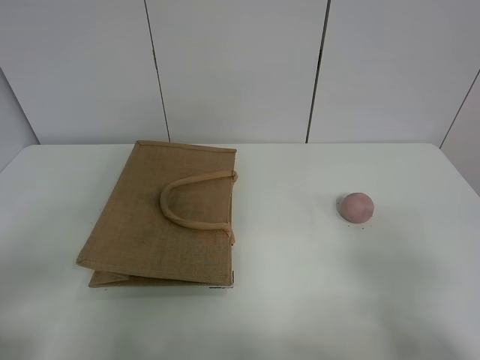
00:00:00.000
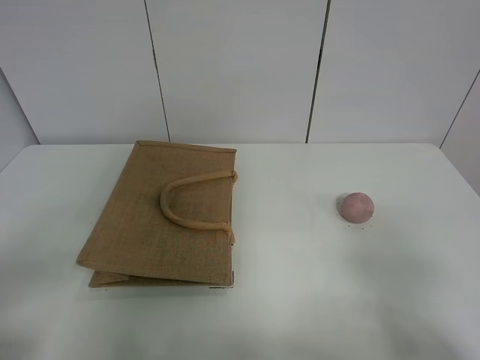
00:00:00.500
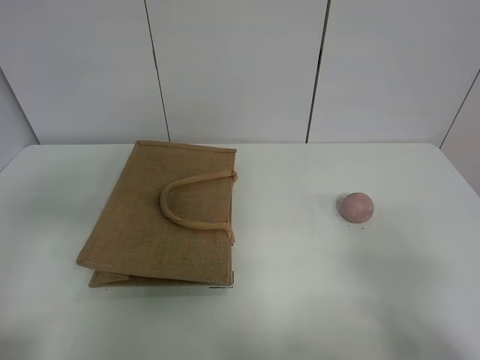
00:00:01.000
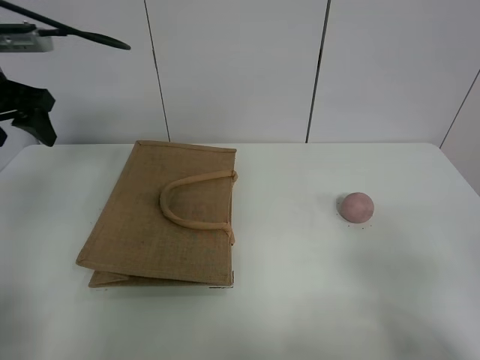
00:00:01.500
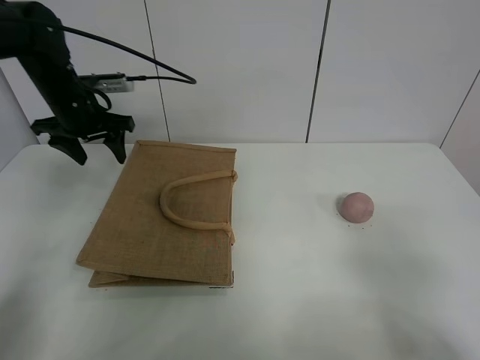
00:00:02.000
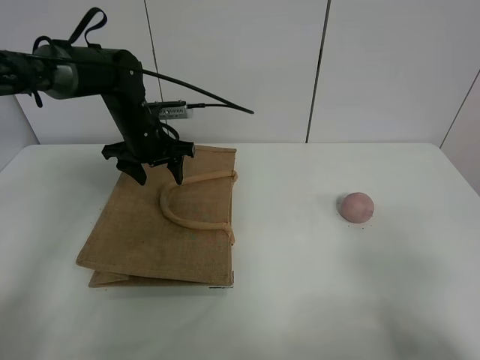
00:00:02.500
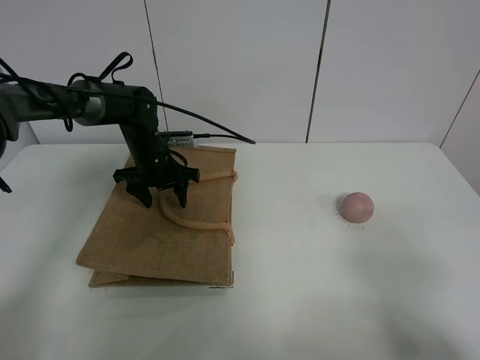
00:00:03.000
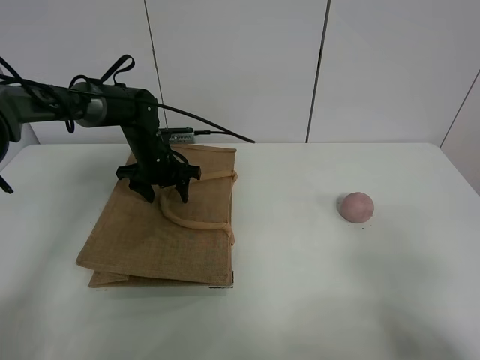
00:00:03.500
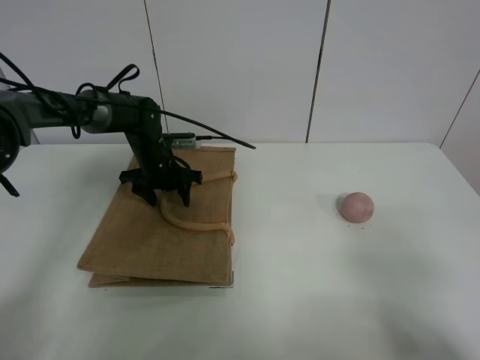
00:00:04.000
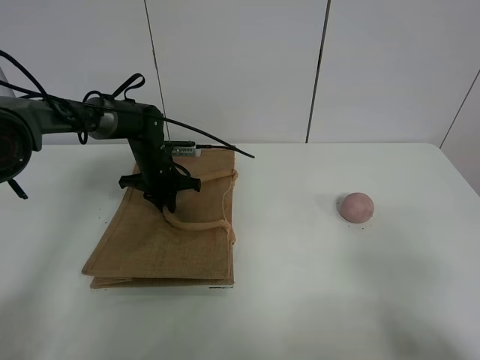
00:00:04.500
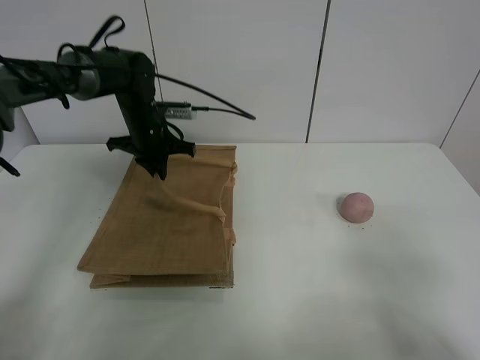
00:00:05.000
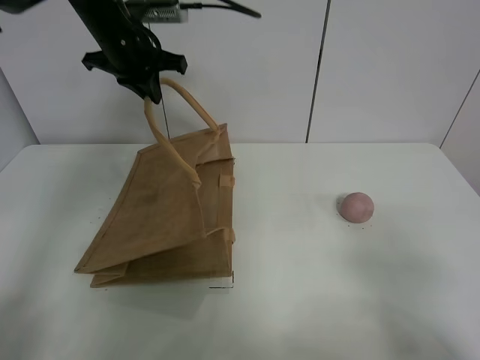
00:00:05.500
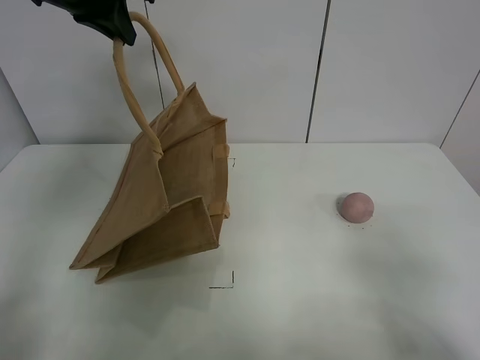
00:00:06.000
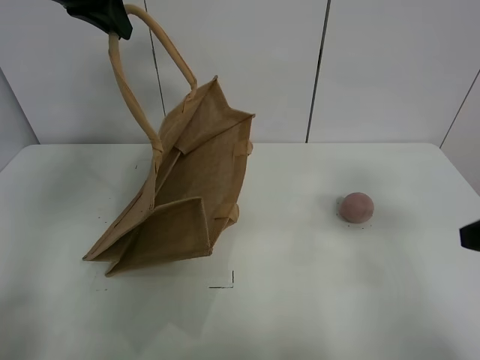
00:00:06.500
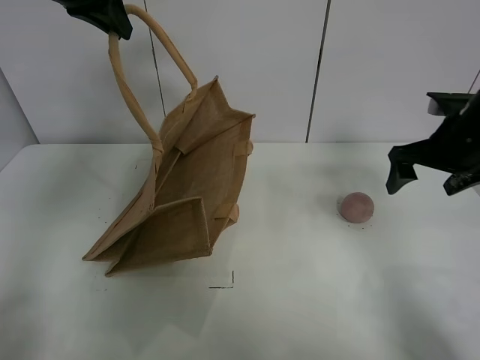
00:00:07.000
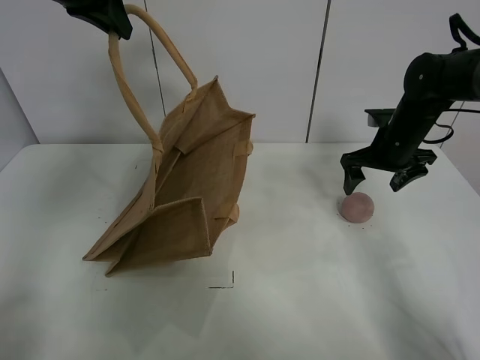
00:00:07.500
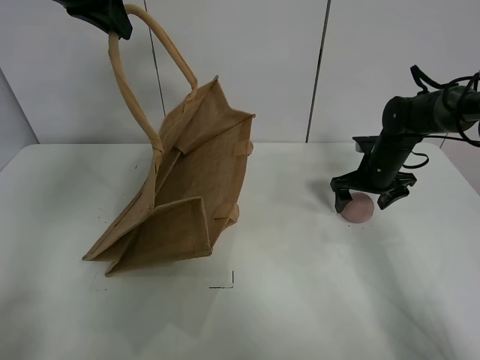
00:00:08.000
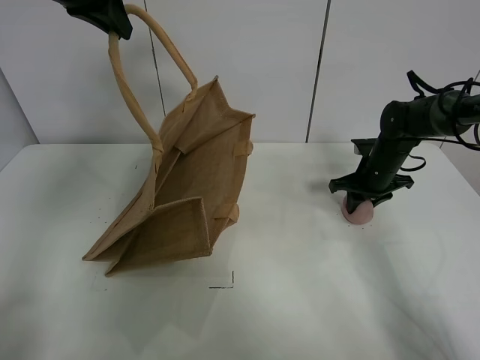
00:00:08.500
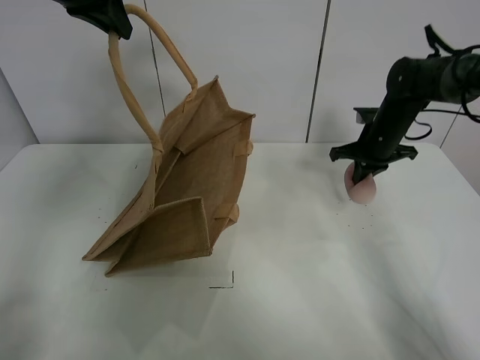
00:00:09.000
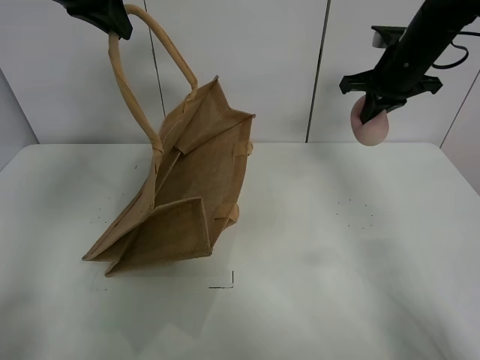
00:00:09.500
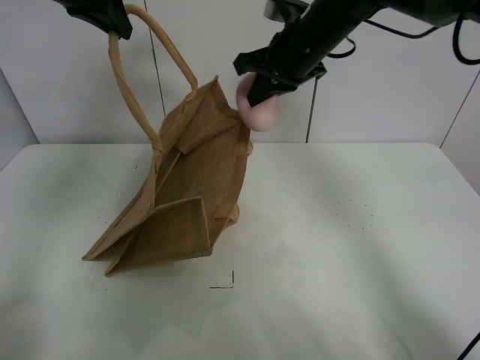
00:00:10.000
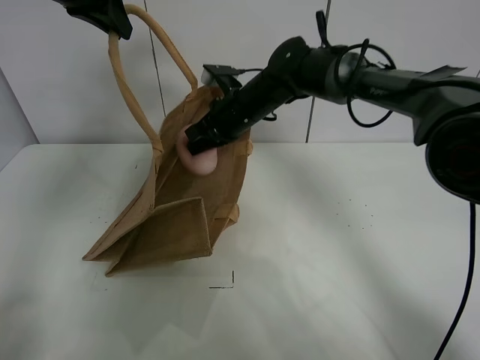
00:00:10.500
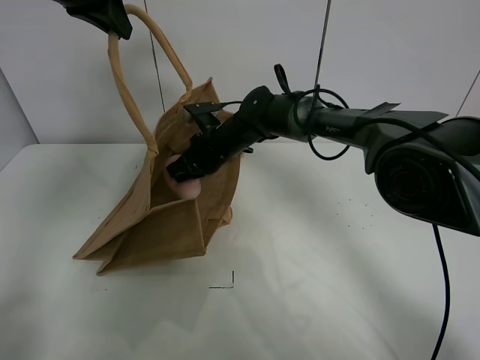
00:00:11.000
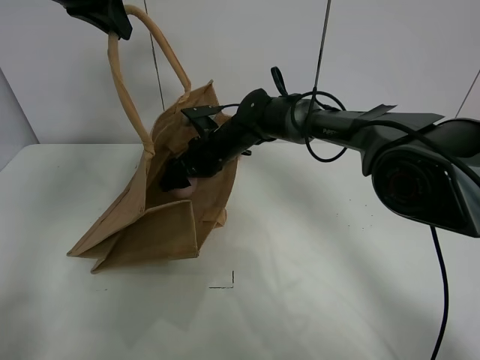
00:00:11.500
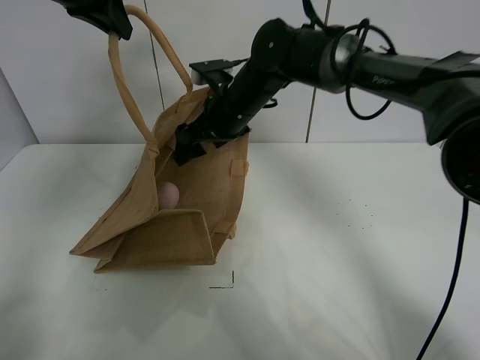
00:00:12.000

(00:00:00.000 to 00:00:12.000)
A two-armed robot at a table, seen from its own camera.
Task of the whole recording: open the brown linen bag and put the peach in the bag.
Step, 00:00:00.000 - 00:00:06.000: Lift the handbag with left gripper.
Step, 00:00:06.500 - 00:00:08.500: Grasp the peach with right gripper.
00:00:00.000 - 00:00:02.000: The left gripper goes about 40 cm forward.
00:00:02.000 - 00:00:04.000: The left gripper moves downward and to the right, approximately 15 cm.
00:00:04.000 - 00:00:06.000: The left gripper goes about 30 cm upward, and closes.
00:00:06.000 - 00:00:08.000: The right gripper moves forward, roughly 40 cm.
00:00:08.000 - 00:00:10.000: The right gripper goes roughly 25 cm upward and to the left, and closes.
00:00:10.000 - 00:00:12.000: The right gripper shifts some 10 cm to the left and downward, and opens its fingers.

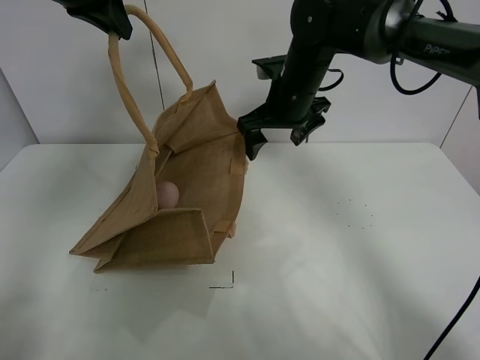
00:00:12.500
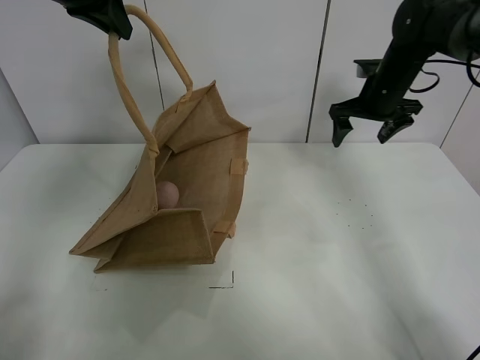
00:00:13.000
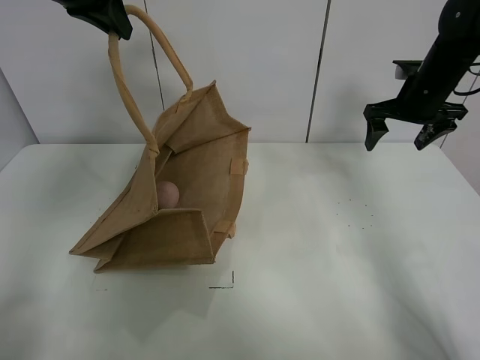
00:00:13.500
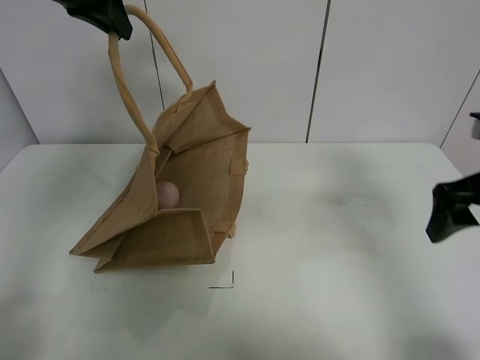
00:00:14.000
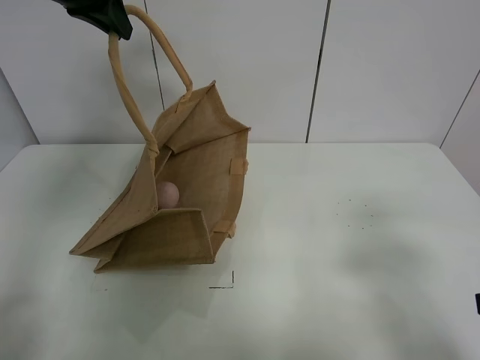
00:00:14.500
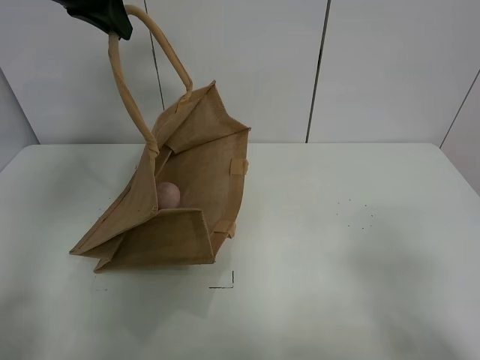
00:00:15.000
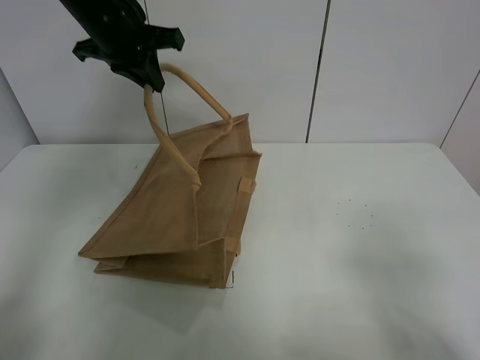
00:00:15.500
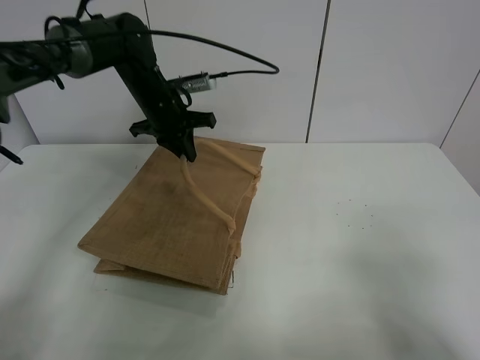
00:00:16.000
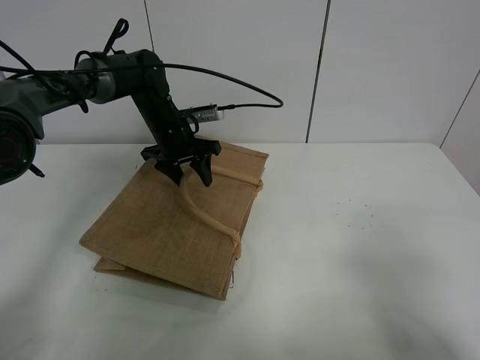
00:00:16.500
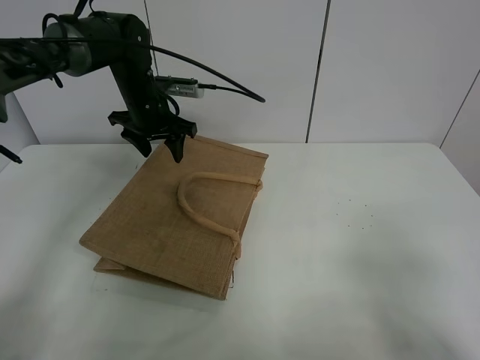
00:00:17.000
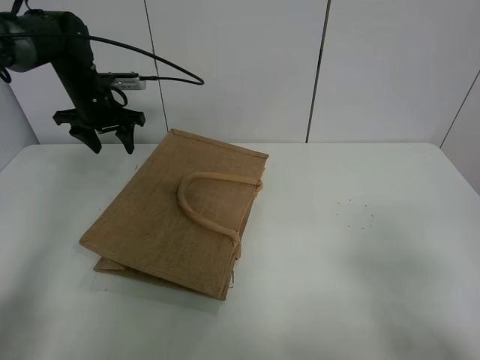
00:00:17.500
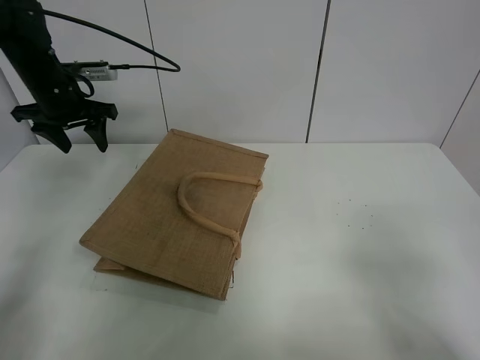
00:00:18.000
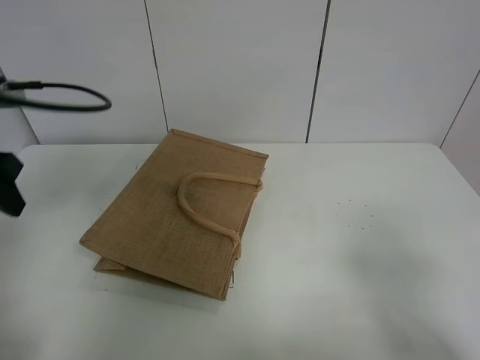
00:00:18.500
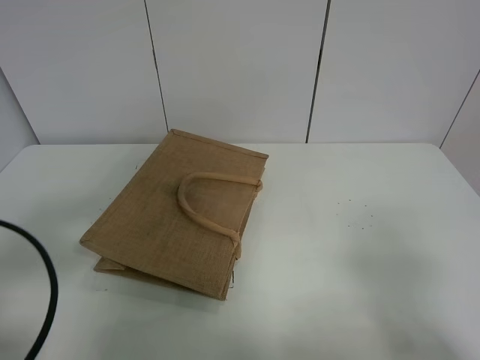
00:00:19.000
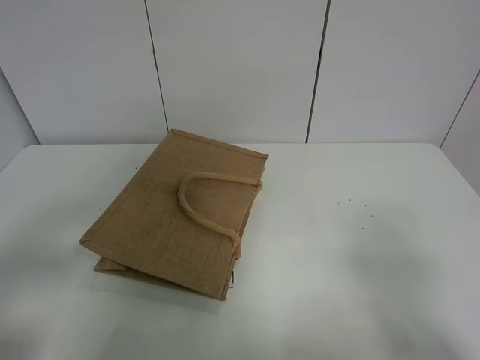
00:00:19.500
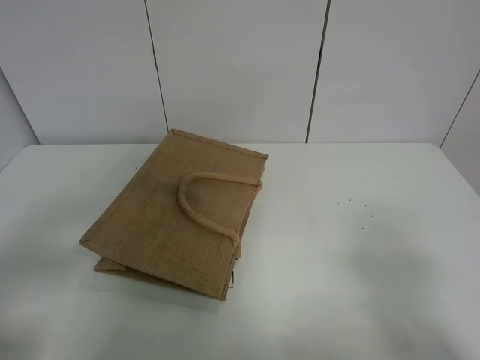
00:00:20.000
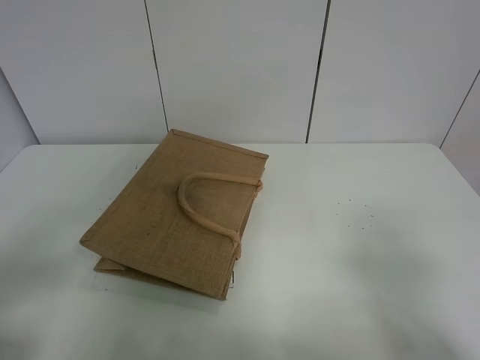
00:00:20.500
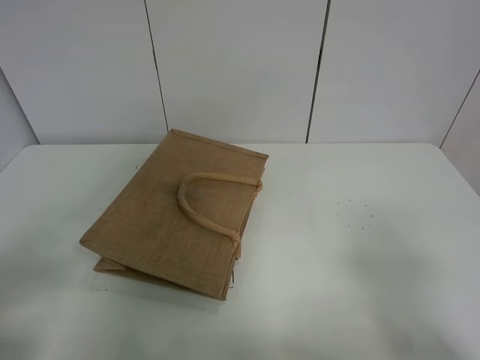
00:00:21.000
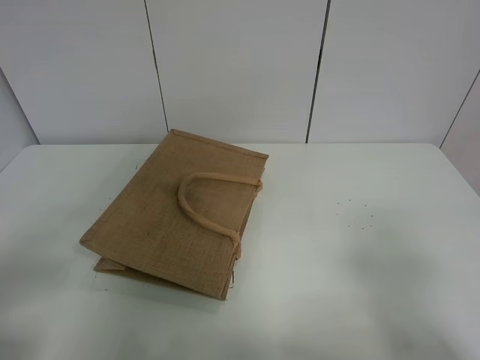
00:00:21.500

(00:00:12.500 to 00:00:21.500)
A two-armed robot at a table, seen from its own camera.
Task of the whole recording: open the brown linen bag and put the peach in the bag.
Step, 00:00:13.000 - 00:00:17.500: Put down the handbag with left grippe.
00:00:12.500 - 00:00:14.500: The right gripper travels backward and to the right by approximately 40 cm.
00:00:14.500 - 00:00:17.000: The left gripper heads downward and forward, covering some 25 cm, and opens its fingers, while the right gripper goes some 5 cm backward.
00:00:17.000 - 00:00:19.500: The left gripper travels backward by approximately 40 cm.
